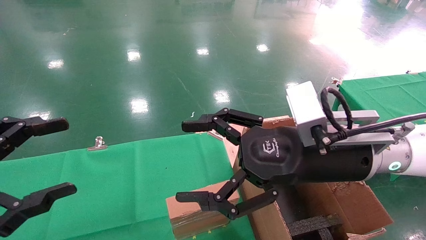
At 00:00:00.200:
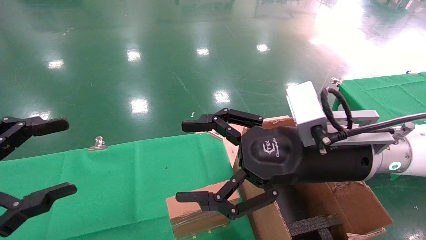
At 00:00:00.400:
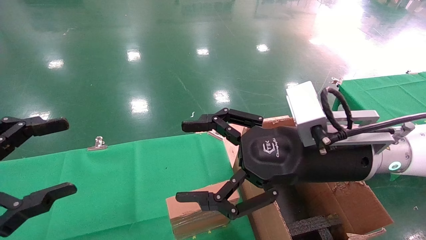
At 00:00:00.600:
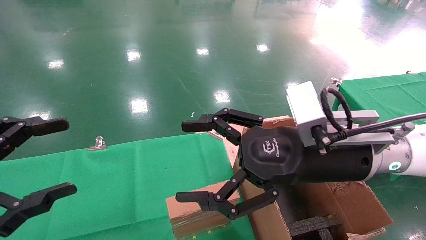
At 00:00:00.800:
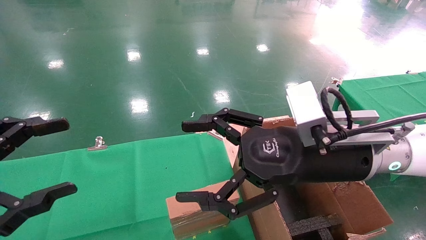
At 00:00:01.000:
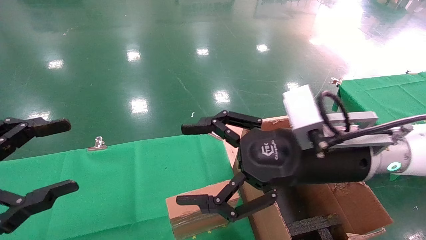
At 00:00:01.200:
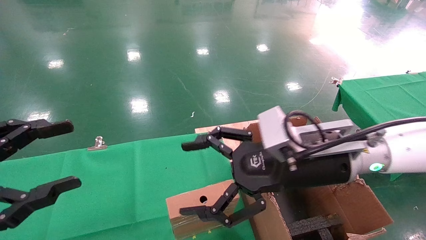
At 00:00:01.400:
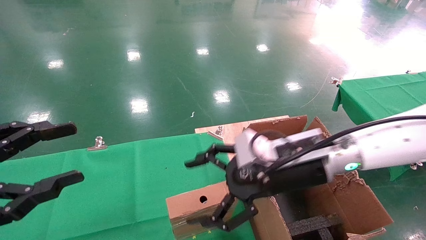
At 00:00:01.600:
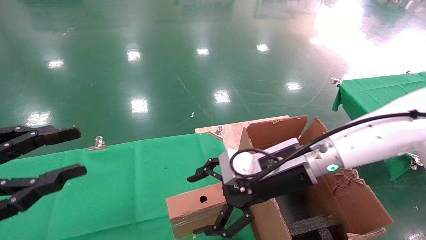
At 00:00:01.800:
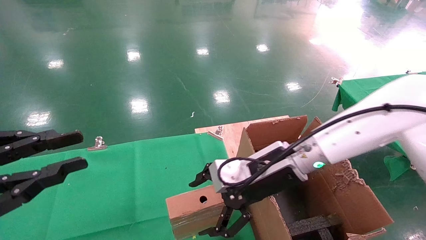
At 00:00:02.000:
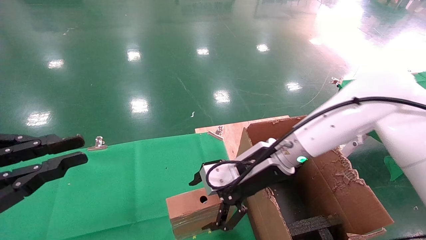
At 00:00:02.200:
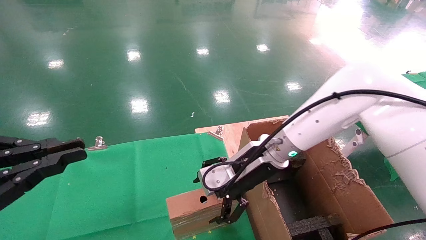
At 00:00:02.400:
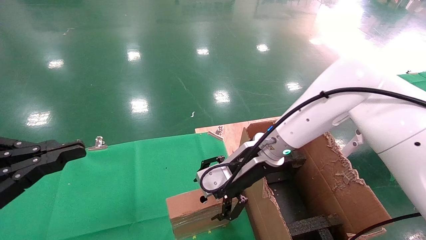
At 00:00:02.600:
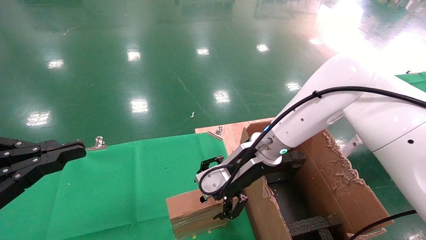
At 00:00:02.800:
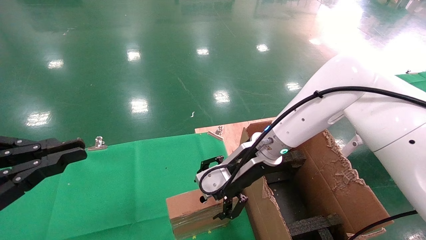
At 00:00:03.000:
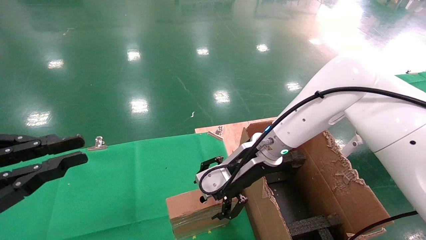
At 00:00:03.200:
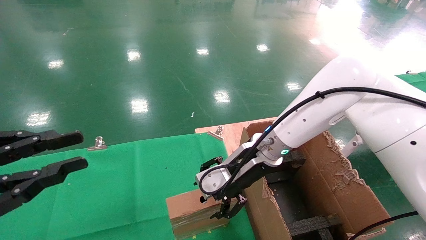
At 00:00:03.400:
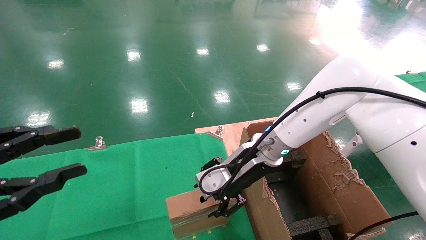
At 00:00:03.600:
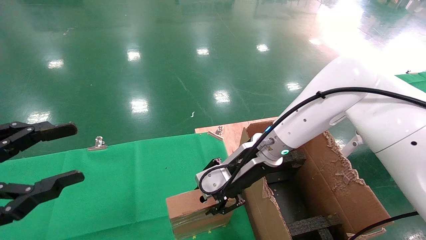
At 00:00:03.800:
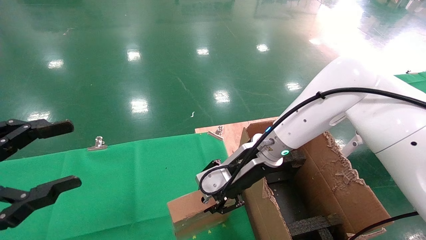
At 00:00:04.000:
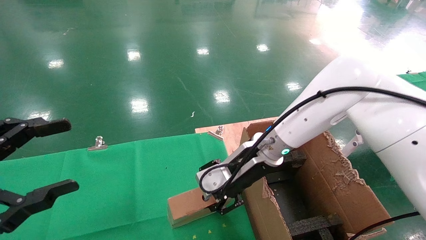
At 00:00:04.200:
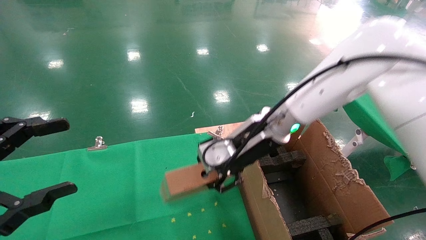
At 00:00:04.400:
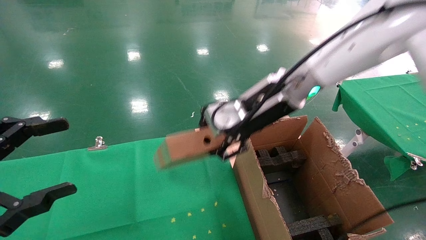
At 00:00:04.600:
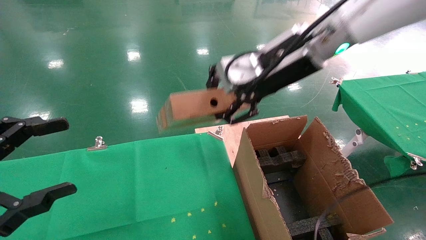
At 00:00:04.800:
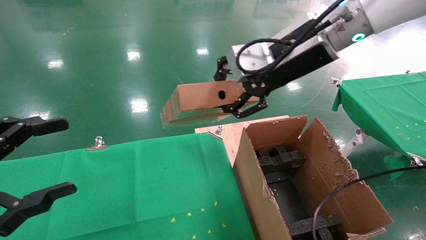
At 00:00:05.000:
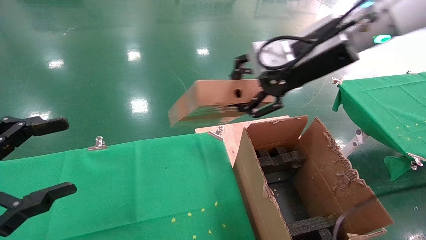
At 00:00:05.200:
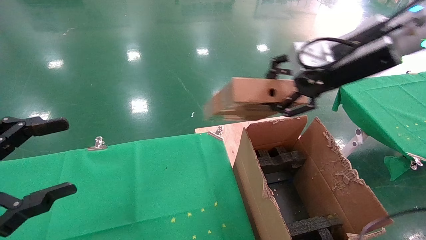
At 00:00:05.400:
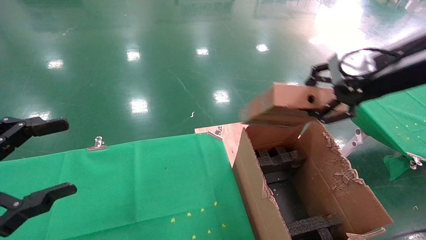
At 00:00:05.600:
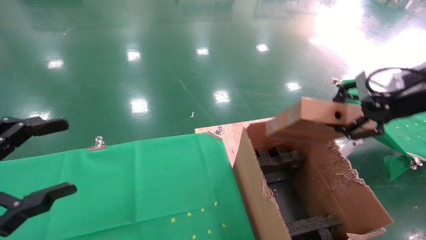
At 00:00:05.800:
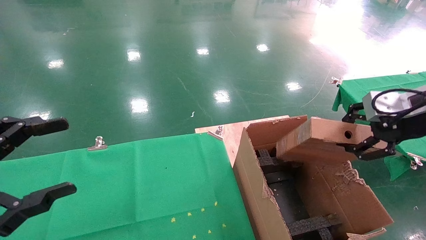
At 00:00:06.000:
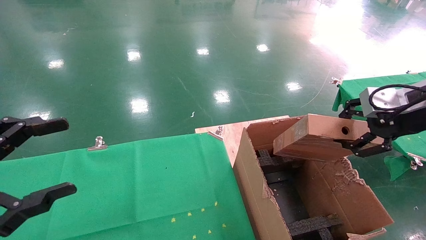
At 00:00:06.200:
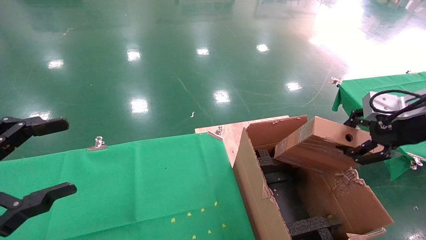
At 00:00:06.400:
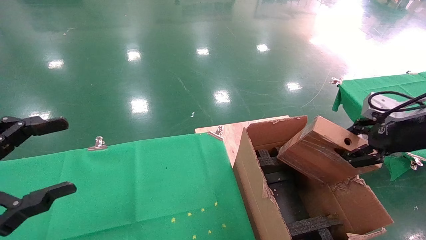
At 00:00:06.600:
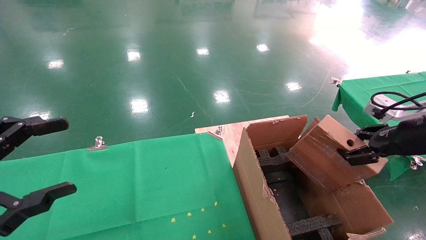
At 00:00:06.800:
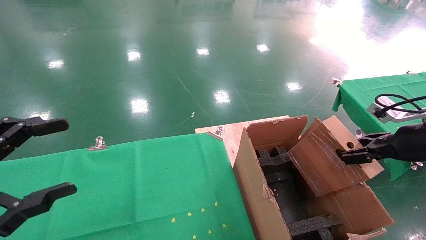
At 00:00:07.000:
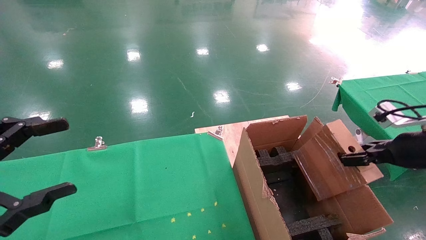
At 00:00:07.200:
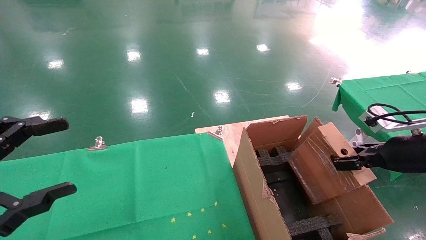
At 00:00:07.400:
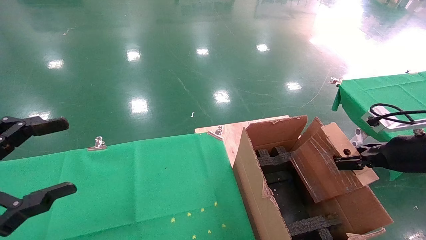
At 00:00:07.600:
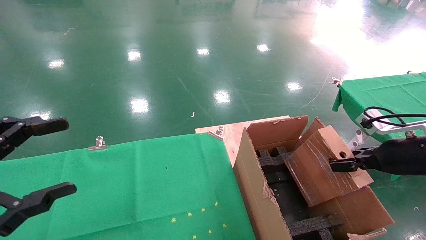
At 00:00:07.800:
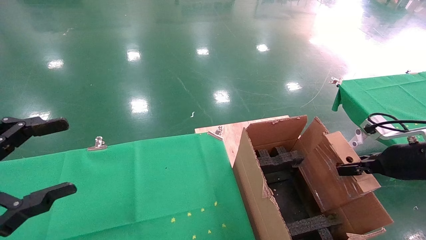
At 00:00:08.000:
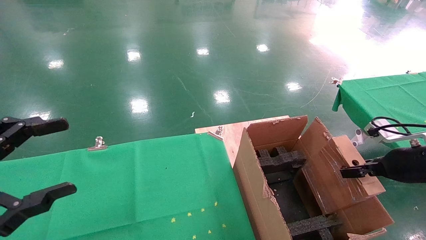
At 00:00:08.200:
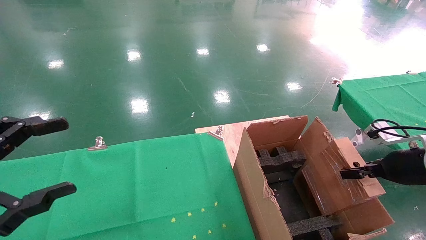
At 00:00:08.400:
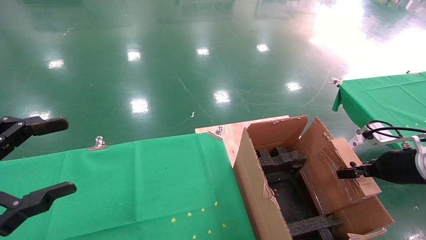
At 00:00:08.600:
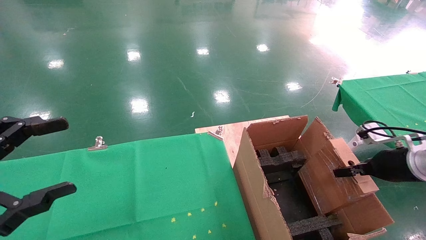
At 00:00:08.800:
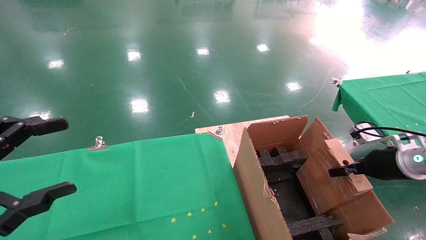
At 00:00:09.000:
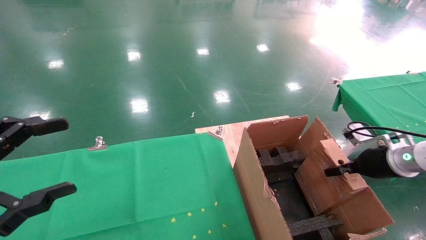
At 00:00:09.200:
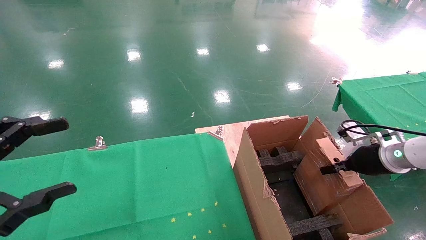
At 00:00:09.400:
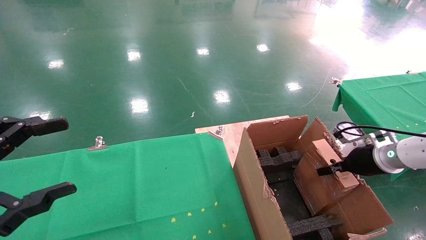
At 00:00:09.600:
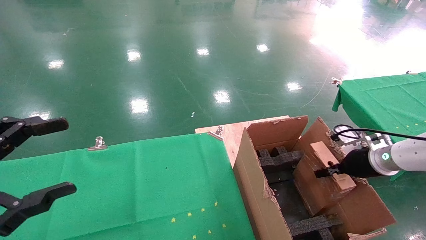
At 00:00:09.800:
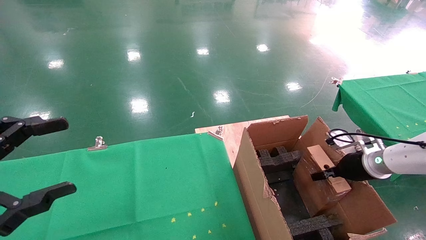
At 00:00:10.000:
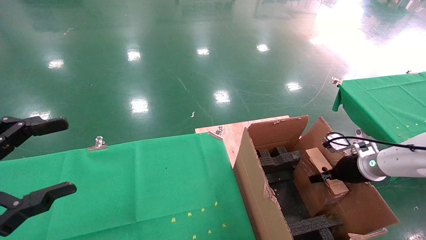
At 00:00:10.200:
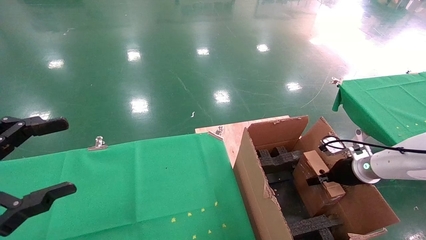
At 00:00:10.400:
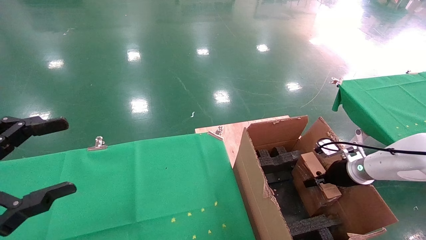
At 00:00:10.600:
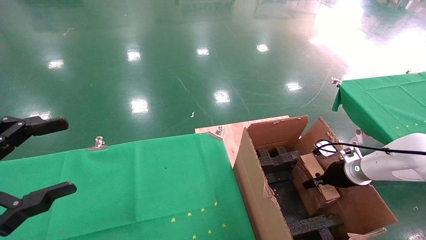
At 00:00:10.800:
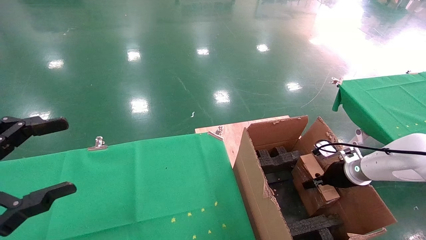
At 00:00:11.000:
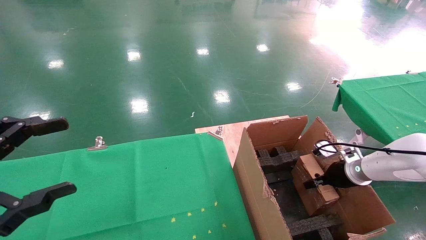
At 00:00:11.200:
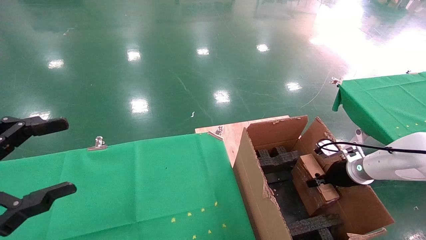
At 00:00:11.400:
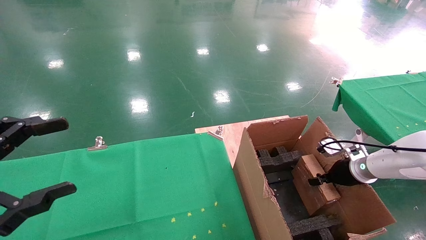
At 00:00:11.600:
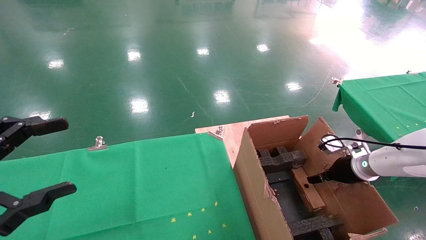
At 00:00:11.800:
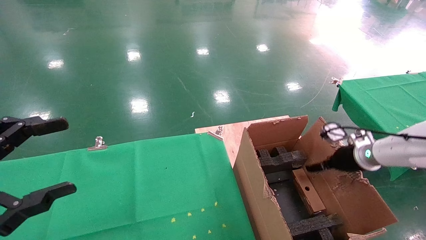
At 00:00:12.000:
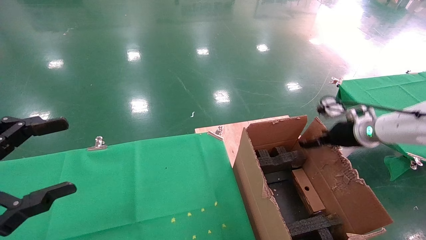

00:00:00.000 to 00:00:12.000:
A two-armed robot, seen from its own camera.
Task of the whole recording: using a robotic arm to pick up a cardboard box and palace it the carton.
Step, 00:00:01.200 to 00:00:03.800: Pick up the mouse and the power cord paper box.
Step, 00:00:04.000 to 00:00:12.000: Place the mouse and the power cord paper box into the container.
00:00:00.000 to 00:00:01.600: The left gripper closes its fingers; the right gripper shifts roughly 10 cm forward and downward.
00:00:01.600 to 00:00:03.000: The right gripper heads forward, covering approximately 5 cm, while the left gripper closes.
00:00:03.000 to 00:00:04.400: The right gripper is displaced upward by about 15 cm, and closes its fingers; the left gripper opens.
00:00:04.400 to 00:00:06.000: The right gripper is displaced to the right and backward by roughly 30 cm.
00:00:06.000 to 00:00:07.600: The right gripper goes approximately 10 cm downward.
00:00:07.600 to 00:00:09.000: The right gripper travels forward and downward by approximately 10 cm.
00:00:09.000 to 00:00:10.400: The right gripper shifts roughly 10 cm downward and forward.
00:00:10.400 to 00:00:12.000: The right gripper is displaced upward by approximately 10 cm, and opens its fingers.

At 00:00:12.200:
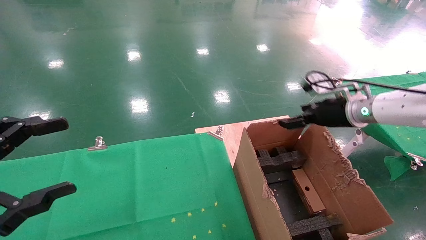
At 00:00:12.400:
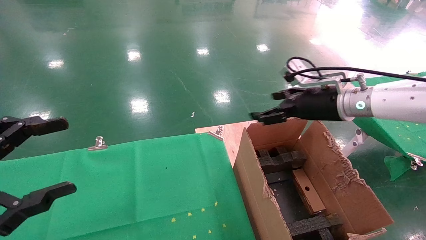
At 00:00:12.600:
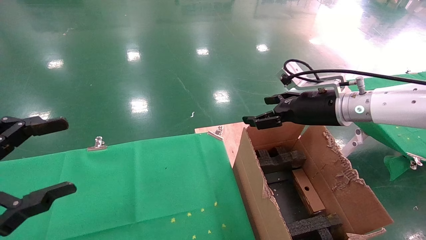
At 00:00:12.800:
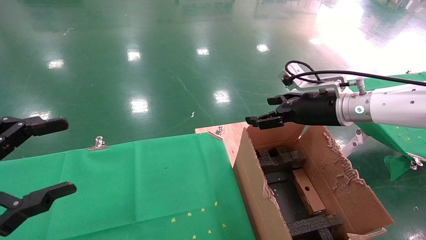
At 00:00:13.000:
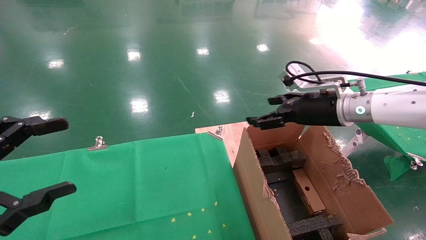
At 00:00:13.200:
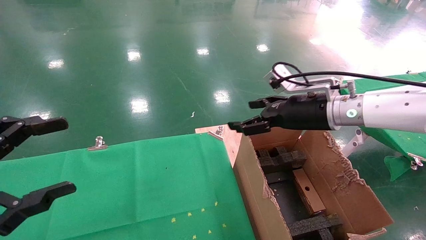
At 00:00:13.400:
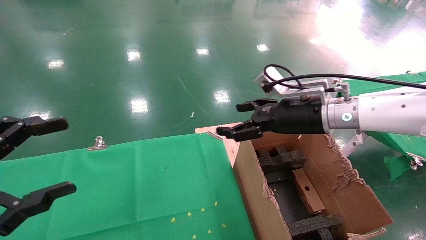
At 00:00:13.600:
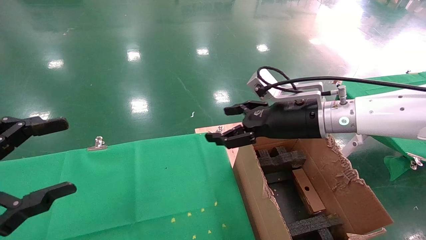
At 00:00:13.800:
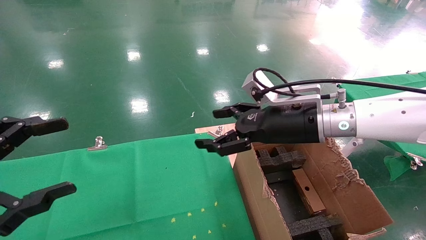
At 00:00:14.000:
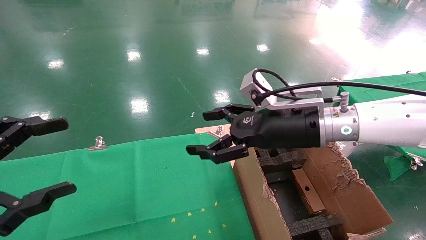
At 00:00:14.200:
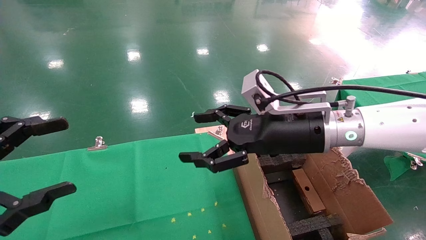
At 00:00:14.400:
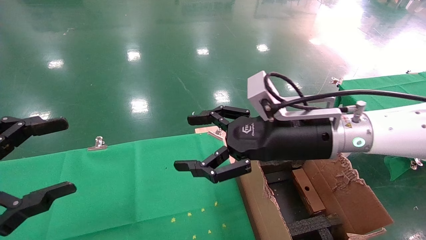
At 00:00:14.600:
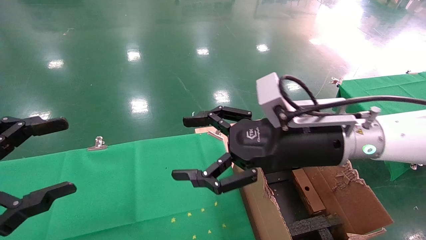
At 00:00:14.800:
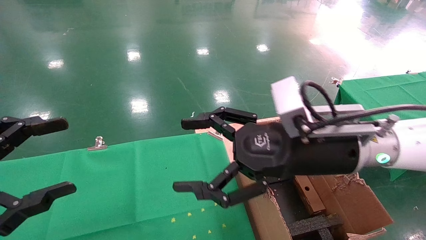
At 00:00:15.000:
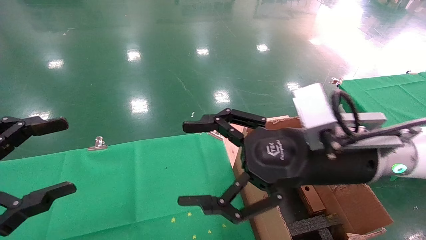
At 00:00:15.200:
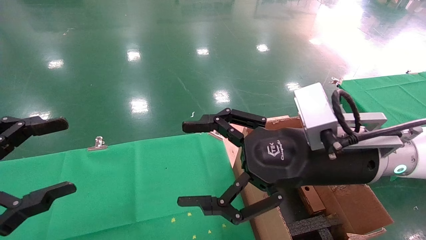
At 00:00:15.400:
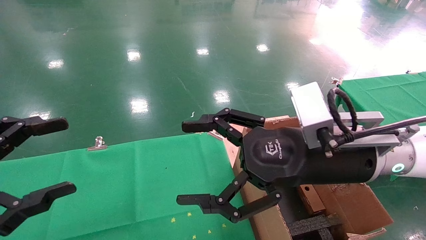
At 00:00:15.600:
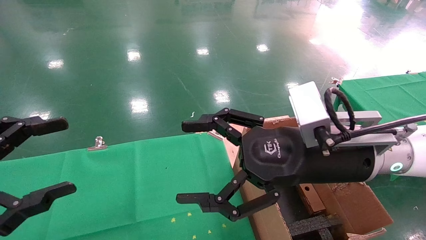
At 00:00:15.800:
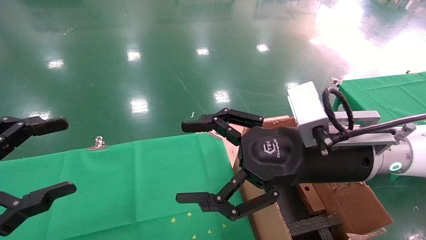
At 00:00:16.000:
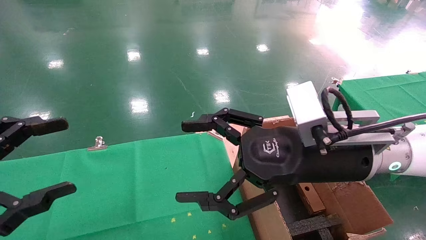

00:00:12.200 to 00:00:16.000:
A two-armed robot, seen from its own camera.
Task of the whole recording: using a robotic arm to pick up a cardboard box and palace it the carton.
00:00:12.200 to 00:00:13.400: The right gripper shifts some 10 cm to the left.
00:00:13.400 to 00:00:14.800: The right gripper is displaced backward and to the left by roughly 10 cm.
00:00:14.800 to 00:00:16.000: The grippers move only a little.
